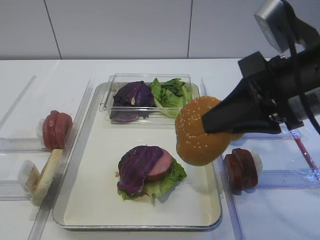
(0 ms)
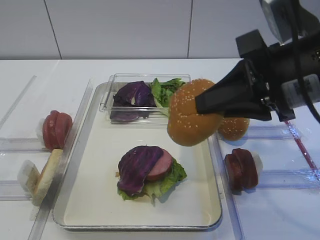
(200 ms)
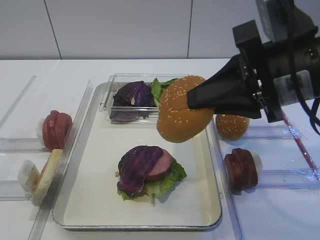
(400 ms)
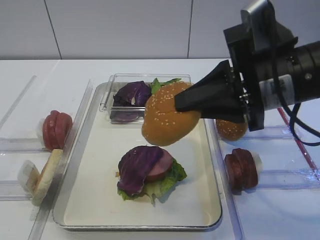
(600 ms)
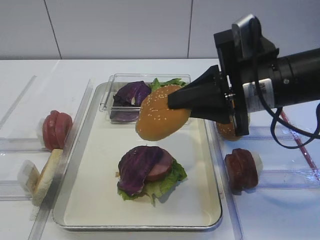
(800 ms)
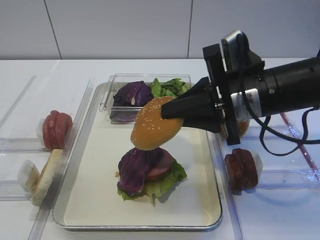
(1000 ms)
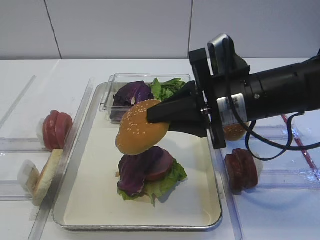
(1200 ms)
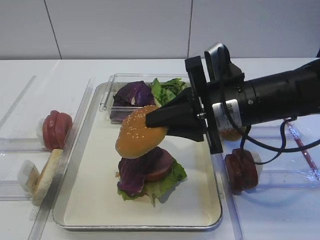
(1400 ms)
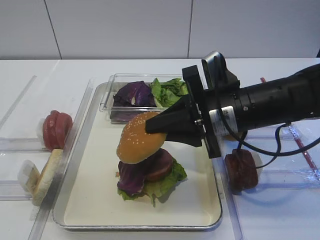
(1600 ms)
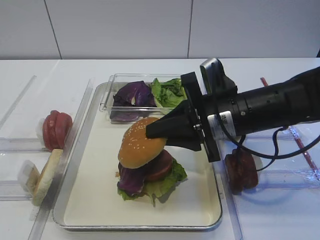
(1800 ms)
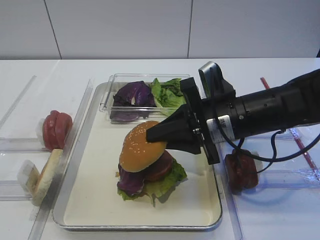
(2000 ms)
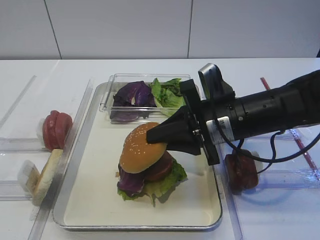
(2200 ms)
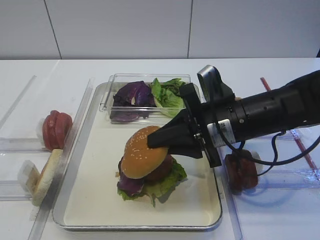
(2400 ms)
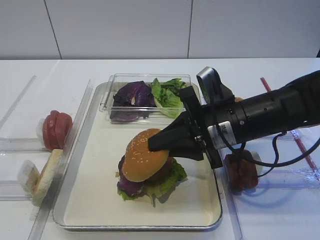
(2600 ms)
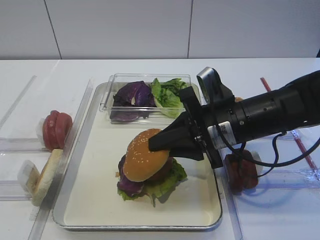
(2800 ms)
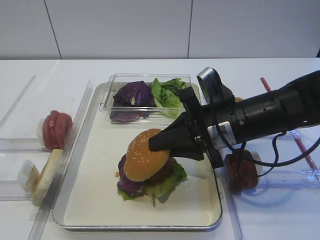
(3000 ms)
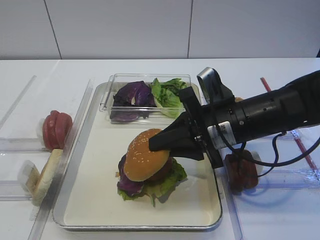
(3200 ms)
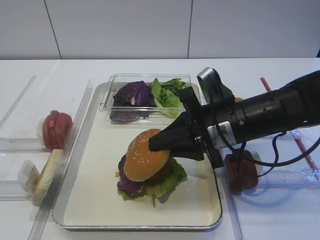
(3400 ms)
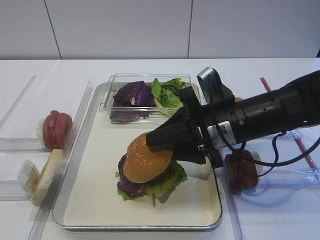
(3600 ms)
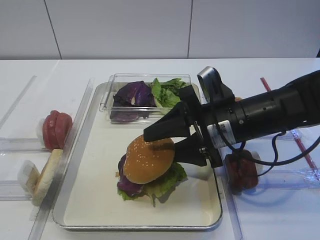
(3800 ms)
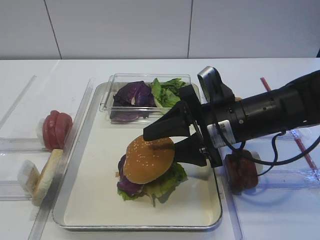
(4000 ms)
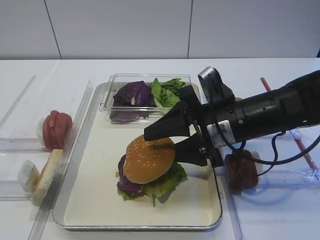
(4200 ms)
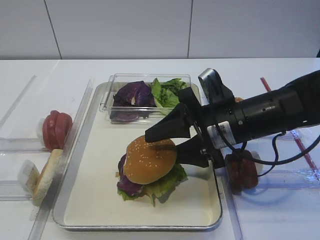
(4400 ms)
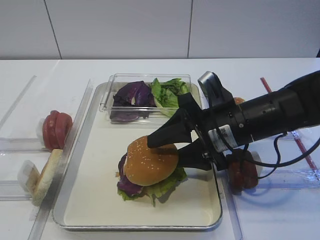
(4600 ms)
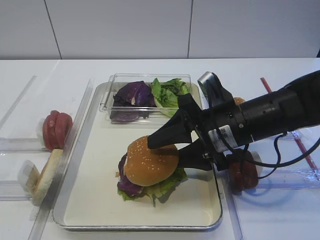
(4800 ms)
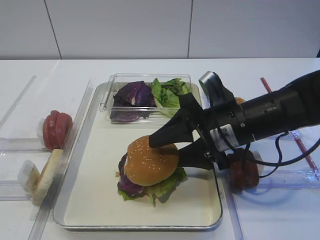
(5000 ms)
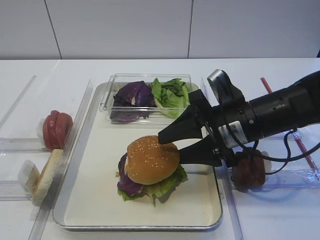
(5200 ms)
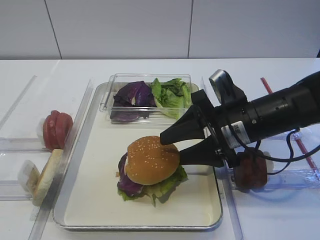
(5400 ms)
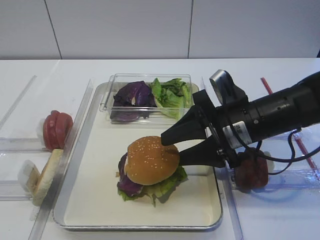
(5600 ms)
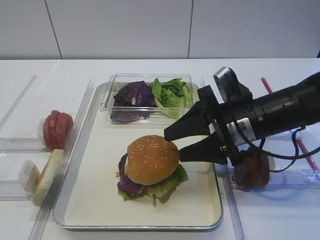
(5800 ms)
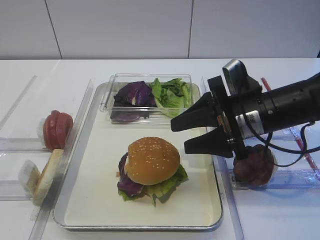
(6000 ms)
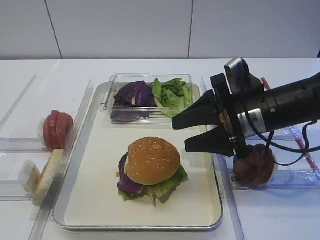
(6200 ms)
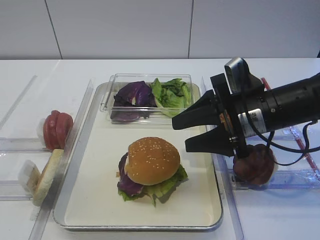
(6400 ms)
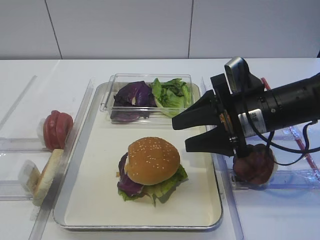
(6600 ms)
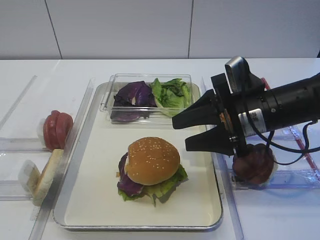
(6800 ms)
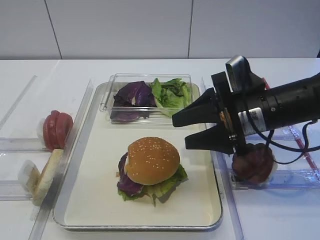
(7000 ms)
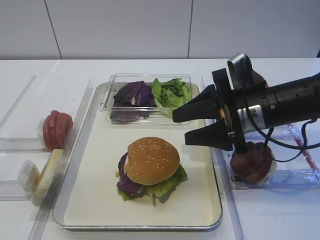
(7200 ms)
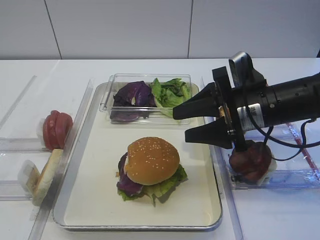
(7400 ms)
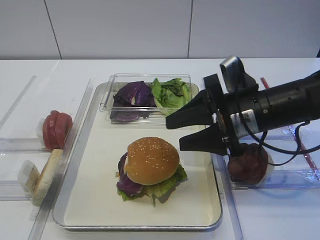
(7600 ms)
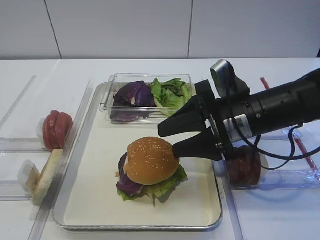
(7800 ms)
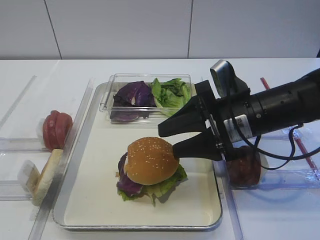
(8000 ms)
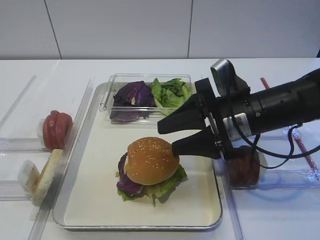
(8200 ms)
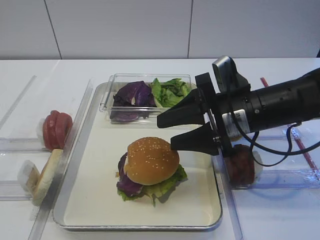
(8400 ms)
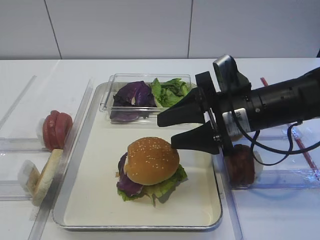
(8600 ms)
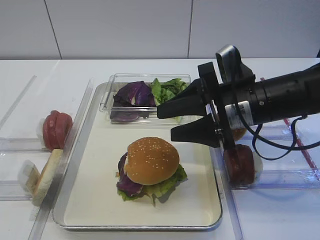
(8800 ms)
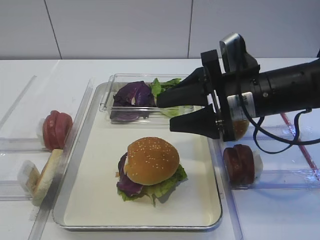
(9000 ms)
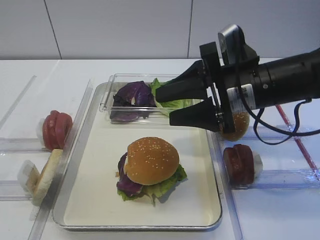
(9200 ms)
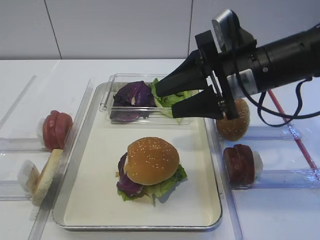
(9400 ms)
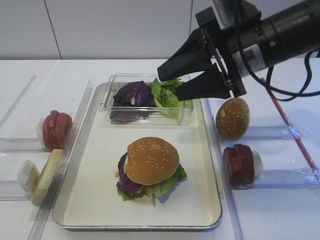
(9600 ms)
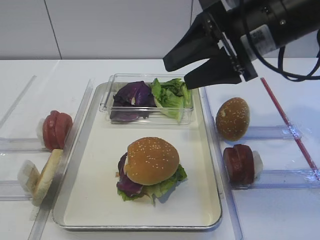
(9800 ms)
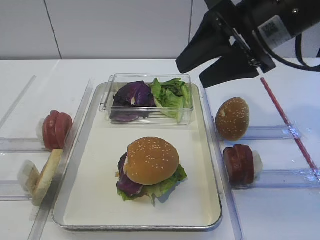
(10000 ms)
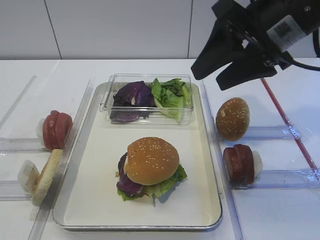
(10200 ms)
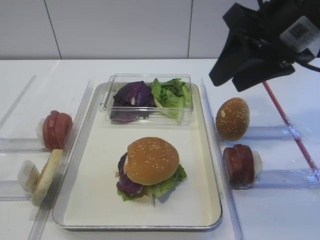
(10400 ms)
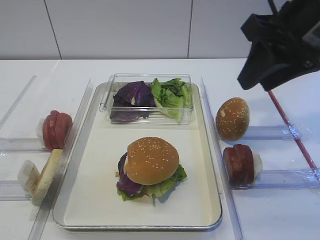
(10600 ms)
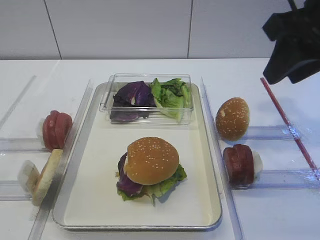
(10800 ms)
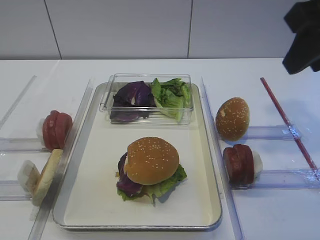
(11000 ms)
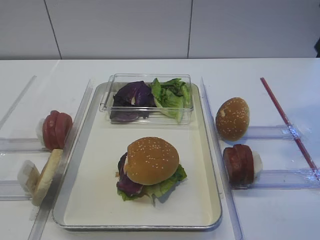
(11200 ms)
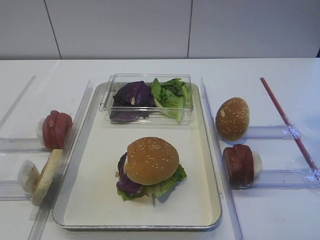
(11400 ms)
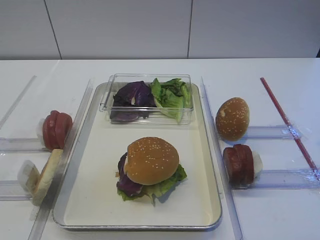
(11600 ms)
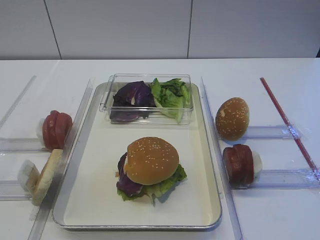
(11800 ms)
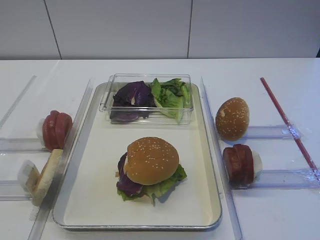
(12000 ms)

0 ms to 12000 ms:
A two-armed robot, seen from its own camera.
Step, 0 ms to 6200 ms: Place the hamburger lid on the purple cabbage with the right gripper.
0 ms to 1600 ms: The right gripper heads downward, forward and to the left, covering some 10 cm.
1600 ms to 3000 ms: The grippers stay close to where they were, moving slightly.
3000 ms to 4400 ms: The right gripper opens up.
4400 ms to 9000 ms: The grippers stay close to where they were, moving slightly.
9000 ms to 10400 ms: The right gripper travels upward by some 10 cm.
10400 ms to 12000 ms: The right gripper moves backward, upward and to the right, roughly 25 cm.

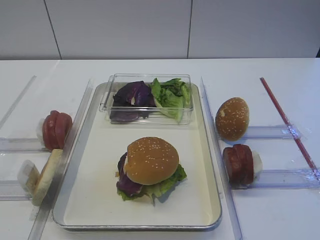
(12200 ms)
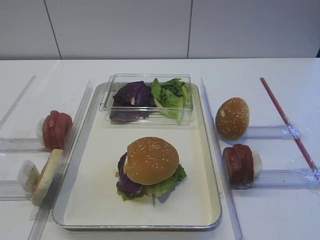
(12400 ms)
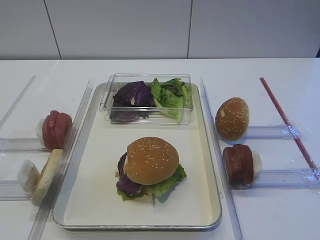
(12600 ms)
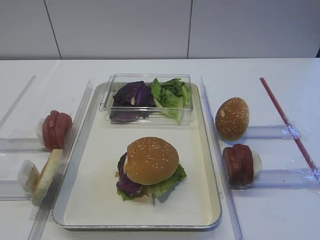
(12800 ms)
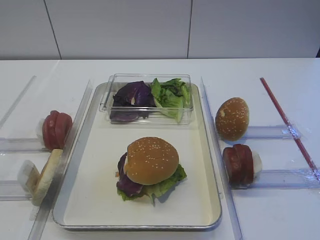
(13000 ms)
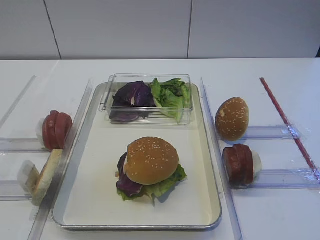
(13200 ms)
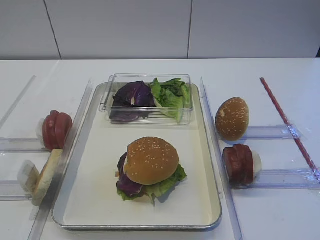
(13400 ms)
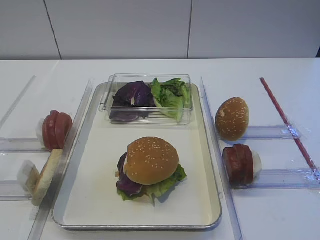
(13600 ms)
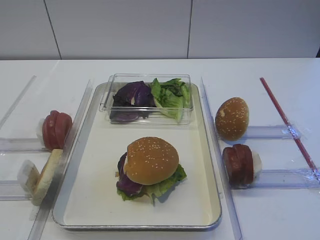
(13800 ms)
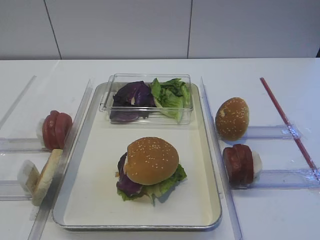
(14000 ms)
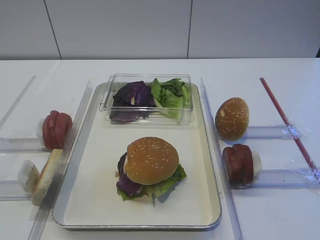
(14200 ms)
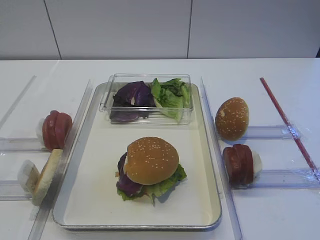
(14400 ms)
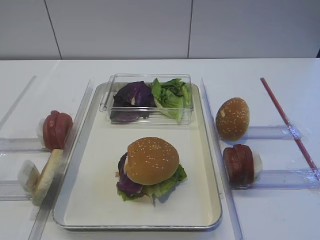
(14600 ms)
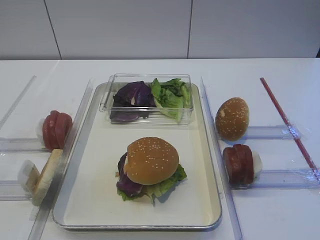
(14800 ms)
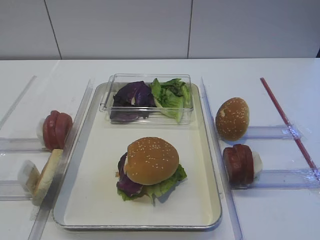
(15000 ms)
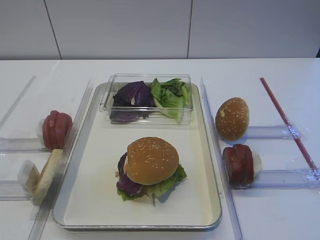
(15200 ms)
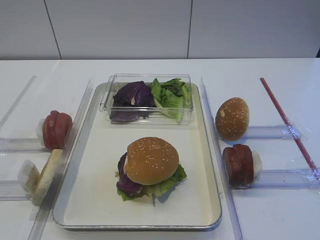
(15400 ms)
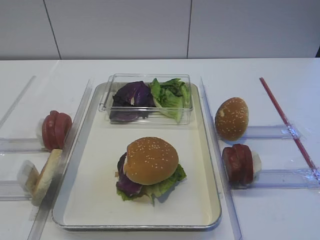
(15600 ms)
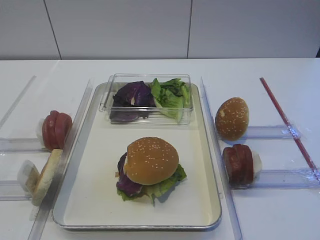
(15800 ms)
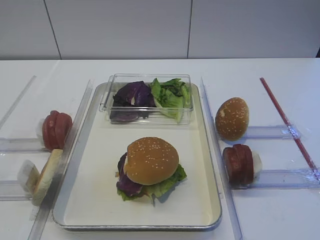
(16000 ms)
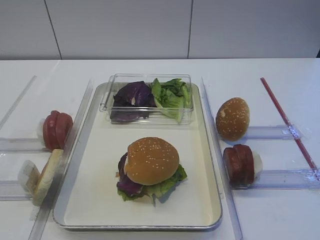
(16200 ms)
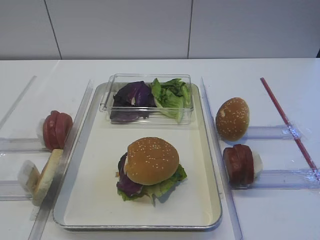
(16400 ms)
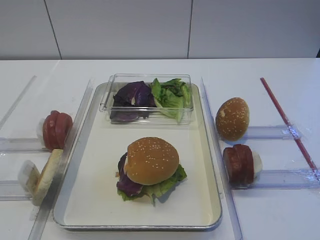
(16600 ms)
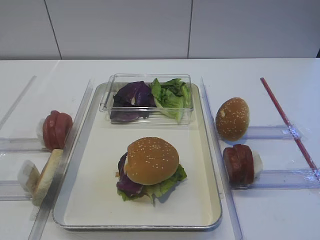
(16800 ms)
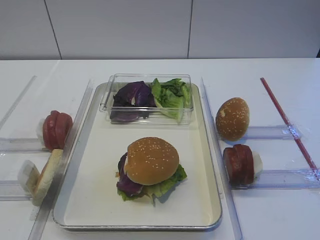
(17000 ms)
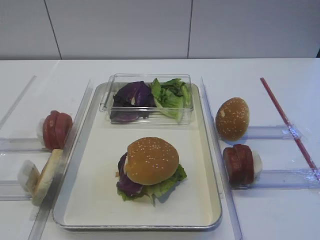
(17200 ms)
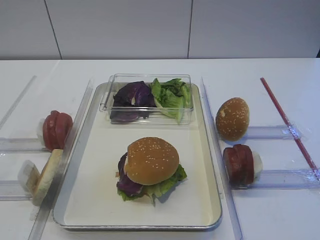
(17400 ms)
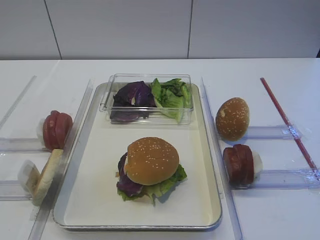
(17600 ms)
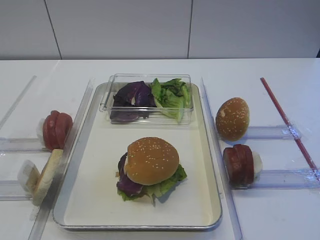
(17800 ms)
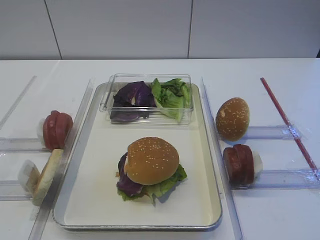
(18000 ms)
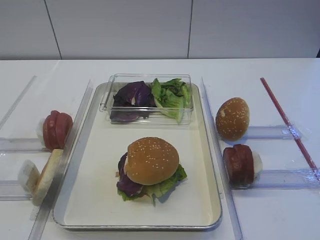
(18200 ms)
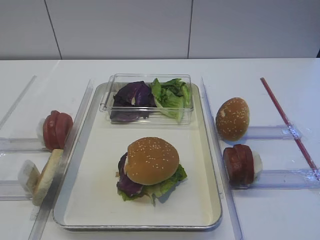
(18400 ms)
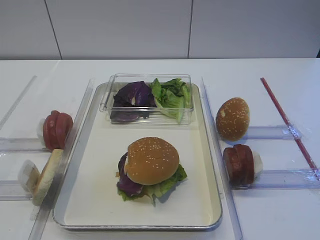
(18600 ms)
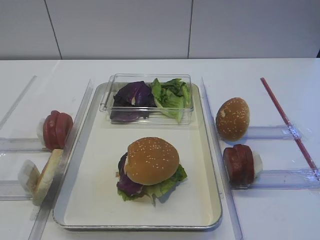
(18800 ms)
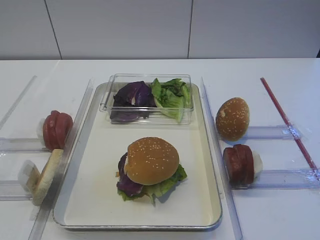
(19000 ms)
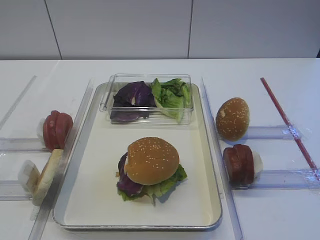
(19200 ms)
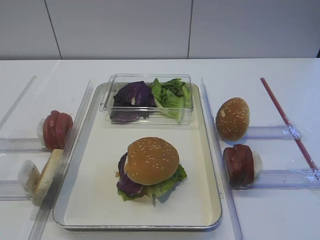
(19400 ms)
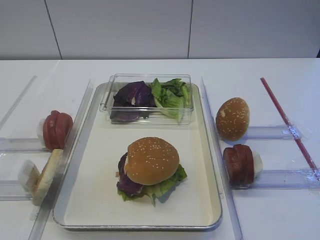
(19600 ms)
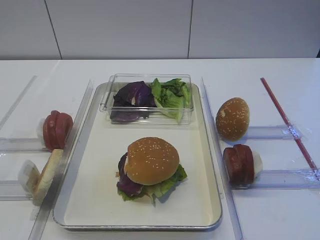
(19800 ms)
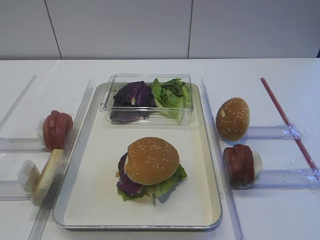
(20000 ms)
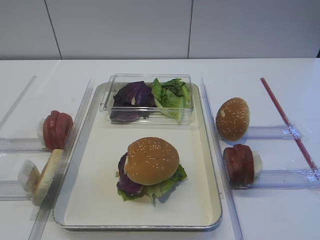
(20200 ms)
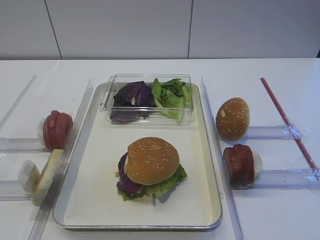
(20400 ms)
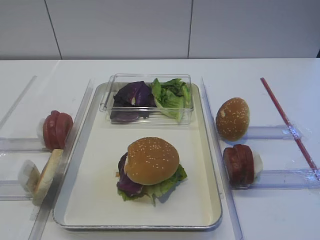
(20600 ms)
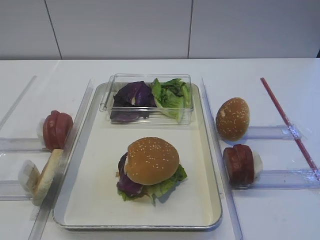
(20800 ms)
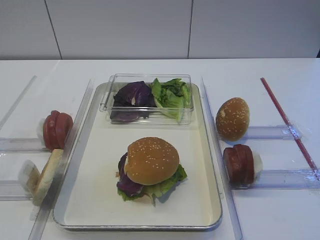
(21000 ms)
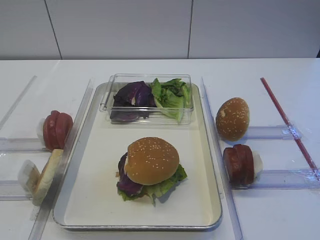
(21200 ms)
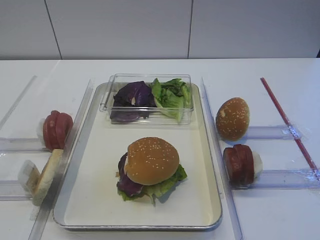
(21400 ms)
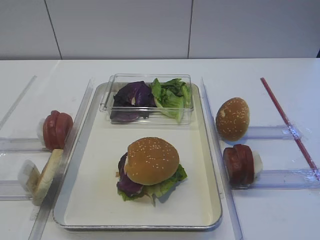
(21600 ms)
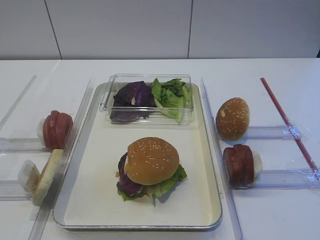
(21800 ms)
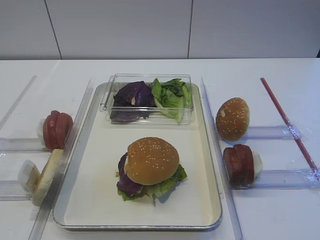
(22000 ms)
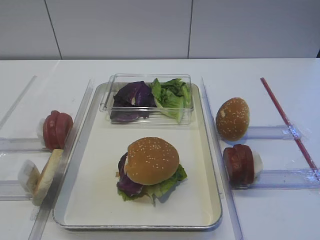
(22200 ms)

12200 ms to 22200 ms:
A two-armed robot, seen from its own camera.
18000 ms to 22200 ms: The two grippers keep their place.

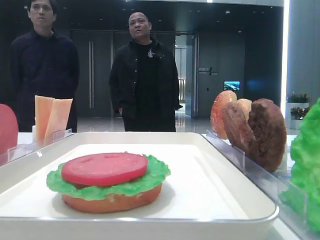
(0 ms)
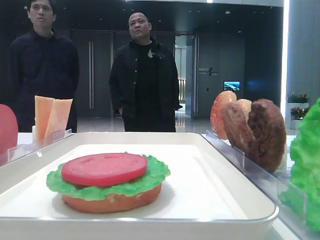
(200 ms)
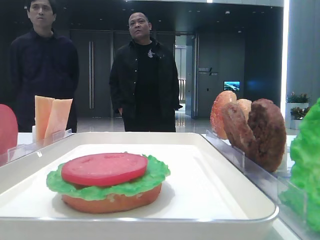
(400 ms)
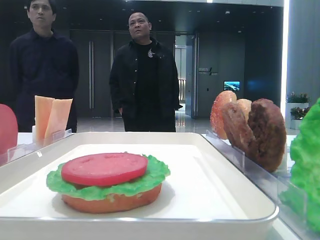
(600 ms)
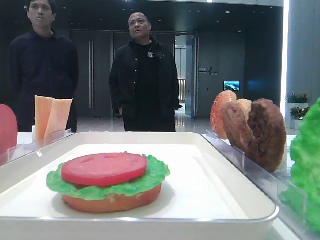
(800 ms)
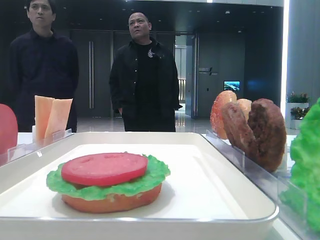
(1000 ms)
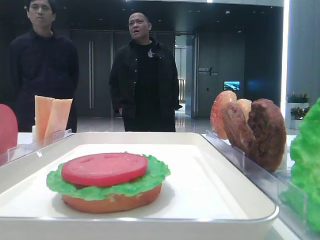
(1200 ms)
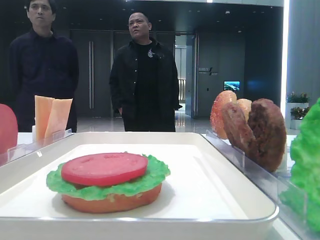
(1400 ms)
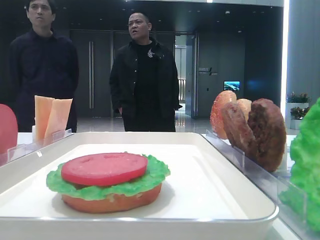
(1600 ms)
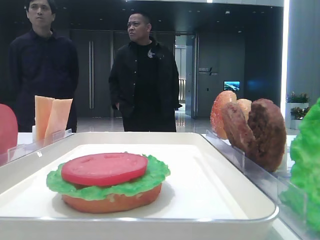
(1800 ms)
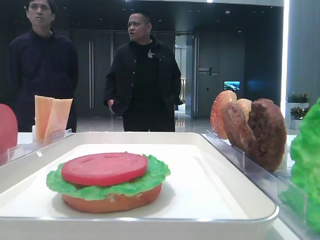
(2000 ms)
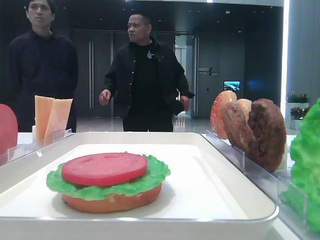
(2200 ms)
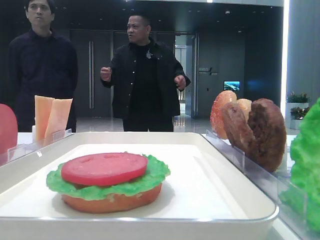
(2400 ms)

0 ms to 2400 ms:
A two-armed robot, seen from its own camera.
1200 ms to 2400 ms: The right gripper goes some 10 cm to the left.
